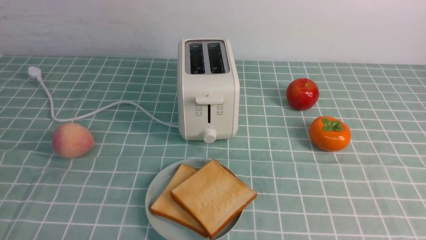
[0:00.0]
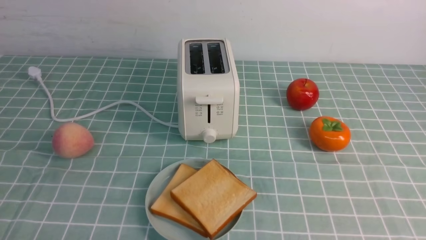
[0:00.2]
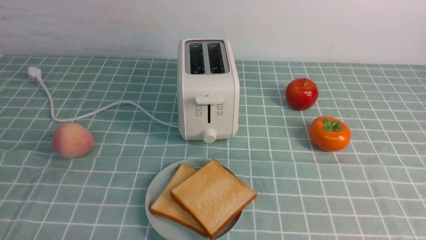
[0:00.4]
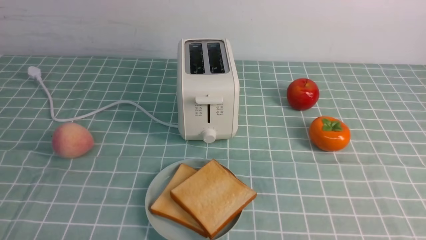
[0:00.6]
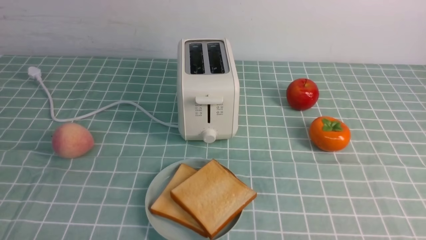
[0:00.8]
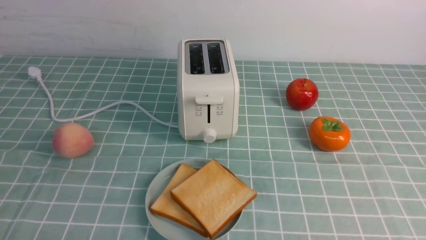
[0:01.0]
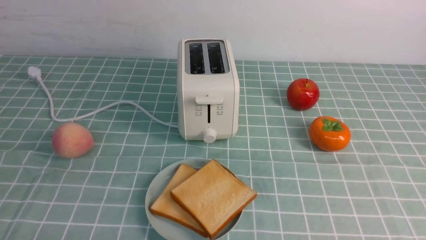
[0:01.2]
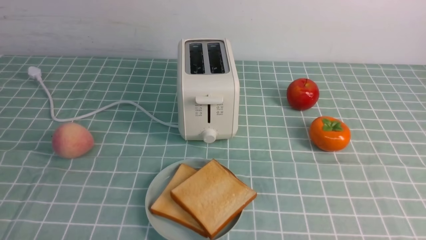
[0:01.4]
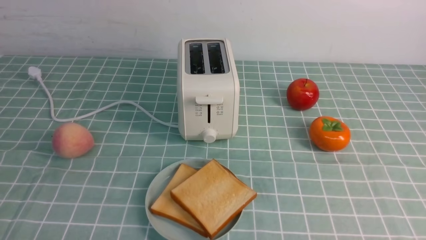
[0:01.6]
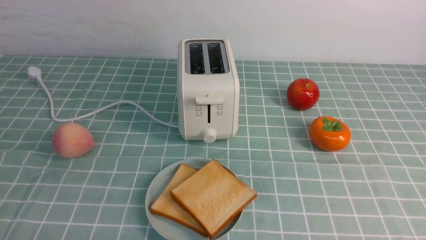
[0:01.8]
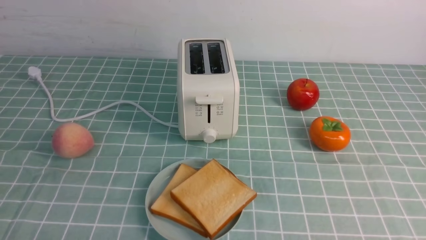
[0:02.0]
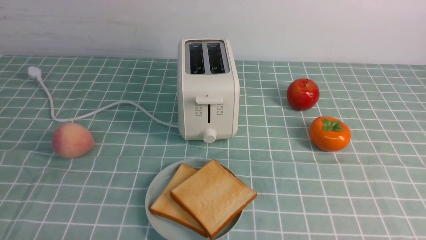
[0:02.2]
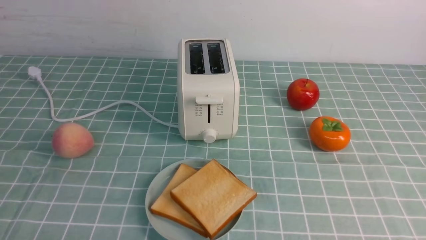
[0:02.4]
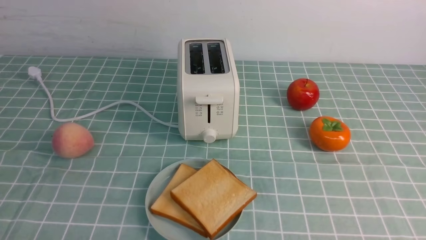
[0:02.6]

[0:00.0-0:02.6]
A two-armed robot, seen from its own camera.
Task of the whole recording: take toasted bread from bread machine on blue coffee table place on plate.
0:01.2 to 0:02.6: Both grippers stay put.
